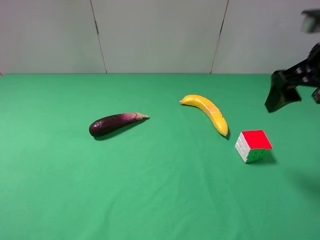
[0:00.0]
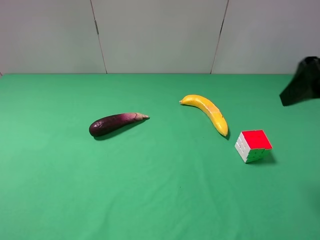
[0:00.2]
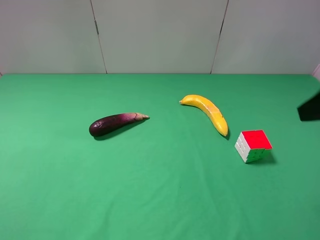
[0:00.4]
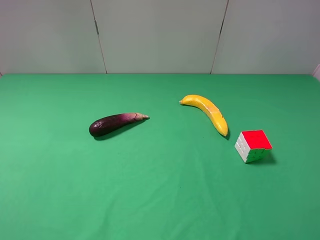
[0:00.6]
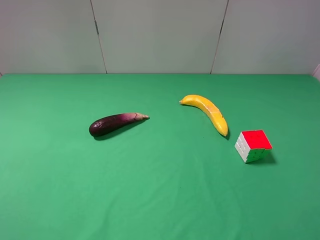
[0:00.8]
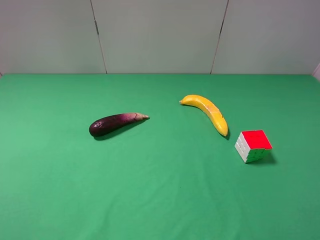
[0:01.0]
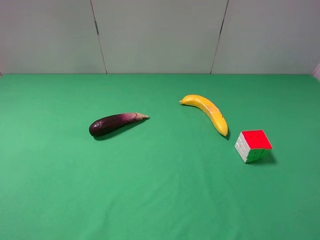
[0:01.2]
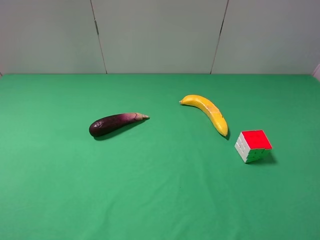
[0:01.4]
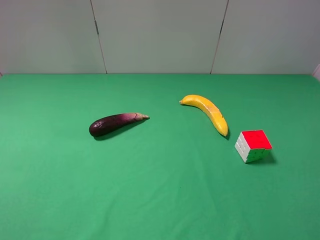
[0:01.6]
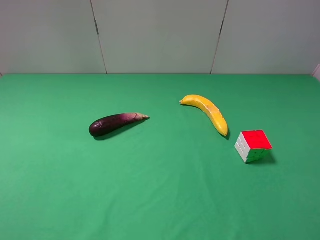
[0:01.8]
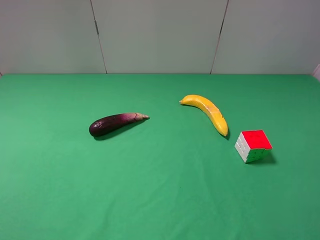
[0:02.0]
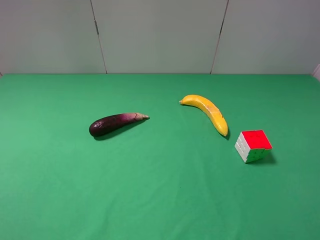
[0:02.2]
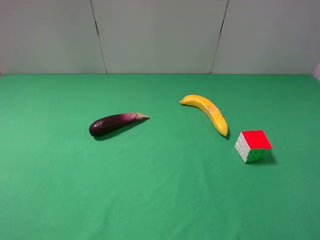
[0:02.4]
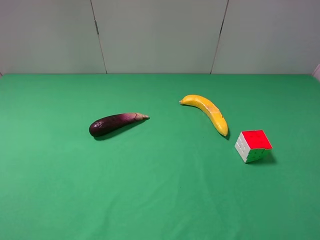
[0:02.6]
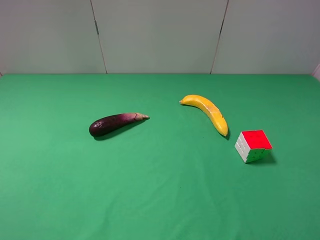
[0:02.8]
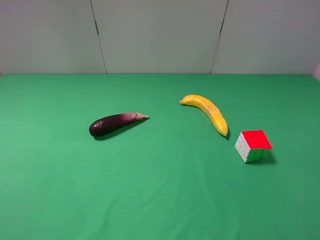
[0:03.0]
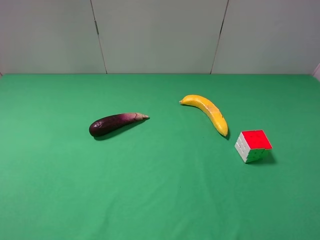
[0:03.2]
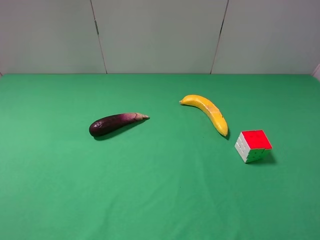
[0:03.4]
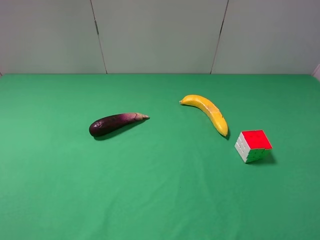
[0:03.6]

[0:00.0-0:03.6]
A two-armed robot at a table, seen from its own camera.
Task of the whole recording: use the left gripper to pick up the item and transfer it from the left gripper to the right gripper.
0:00.0 to 0:01.8: The right gripper travels backward by some 20 cm.

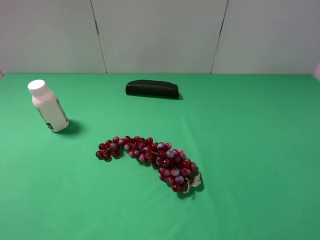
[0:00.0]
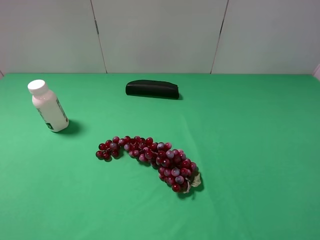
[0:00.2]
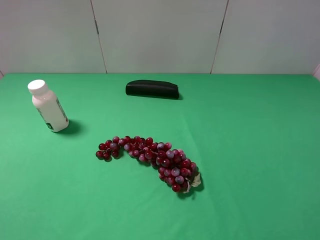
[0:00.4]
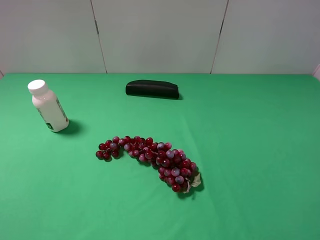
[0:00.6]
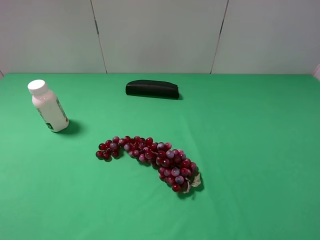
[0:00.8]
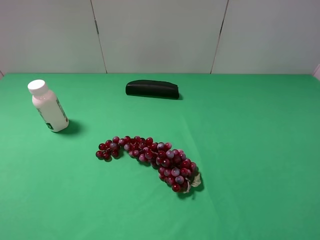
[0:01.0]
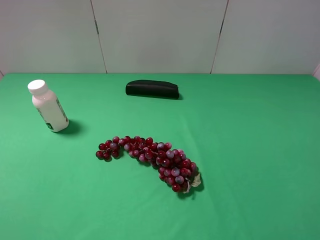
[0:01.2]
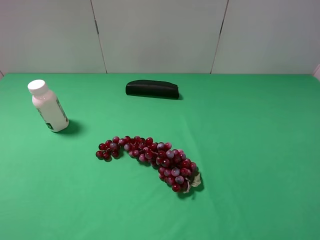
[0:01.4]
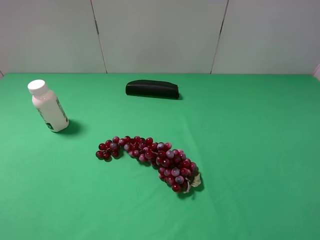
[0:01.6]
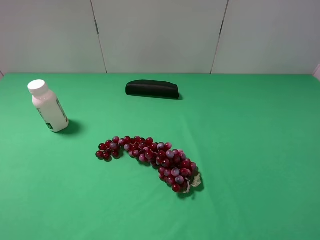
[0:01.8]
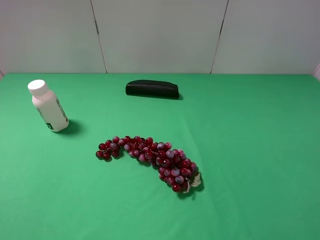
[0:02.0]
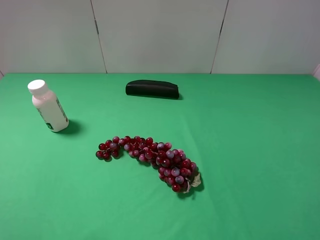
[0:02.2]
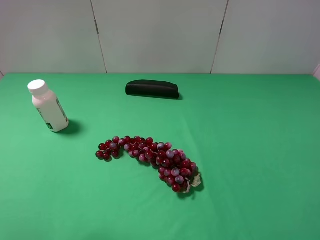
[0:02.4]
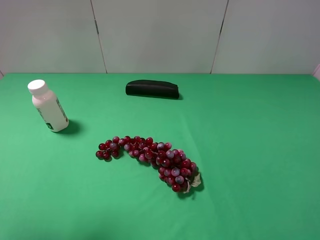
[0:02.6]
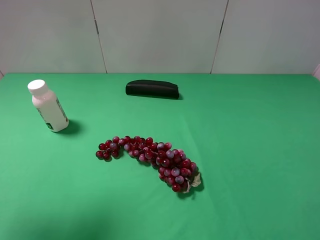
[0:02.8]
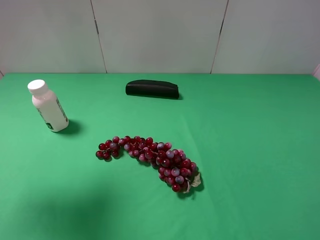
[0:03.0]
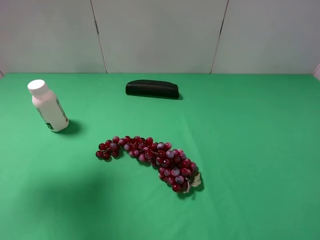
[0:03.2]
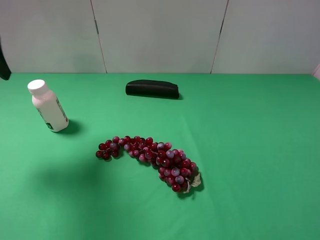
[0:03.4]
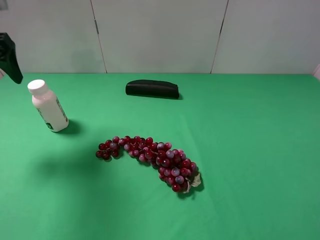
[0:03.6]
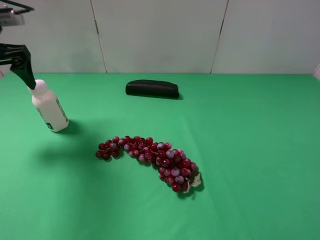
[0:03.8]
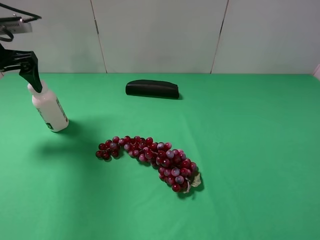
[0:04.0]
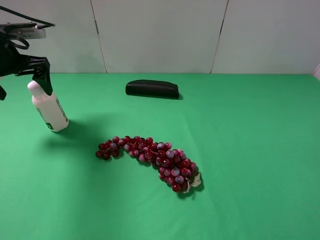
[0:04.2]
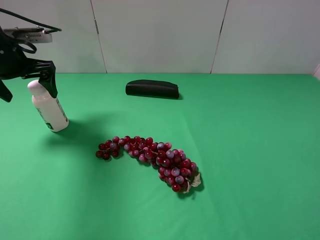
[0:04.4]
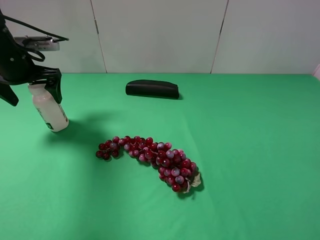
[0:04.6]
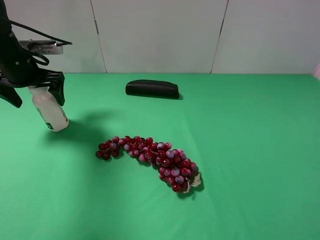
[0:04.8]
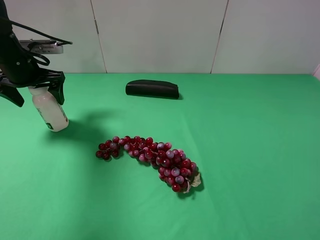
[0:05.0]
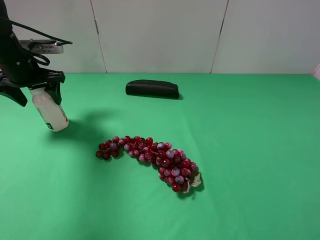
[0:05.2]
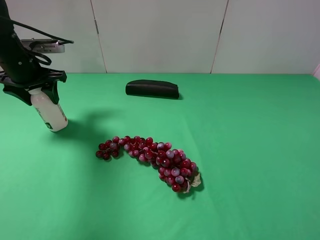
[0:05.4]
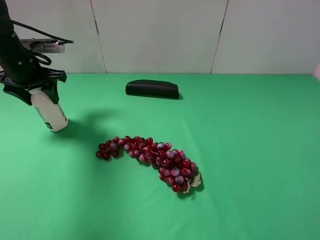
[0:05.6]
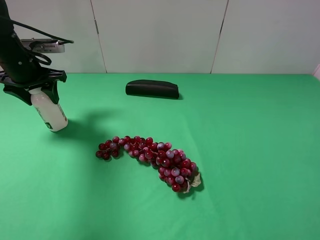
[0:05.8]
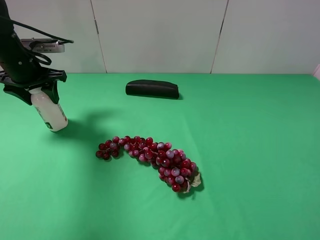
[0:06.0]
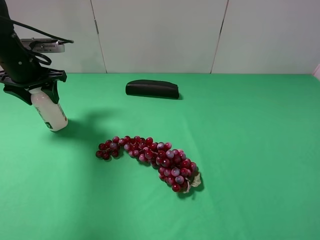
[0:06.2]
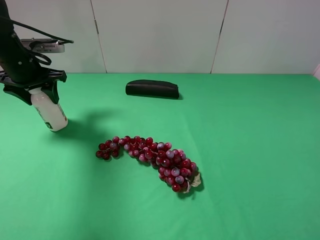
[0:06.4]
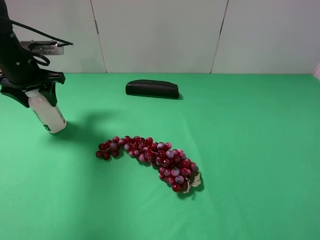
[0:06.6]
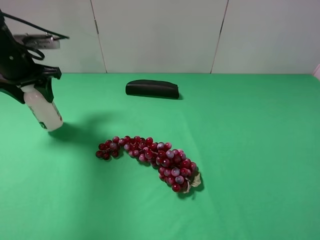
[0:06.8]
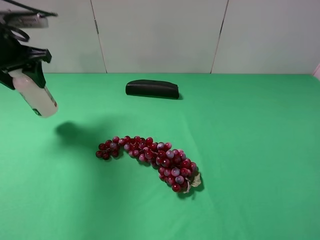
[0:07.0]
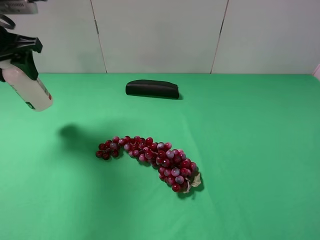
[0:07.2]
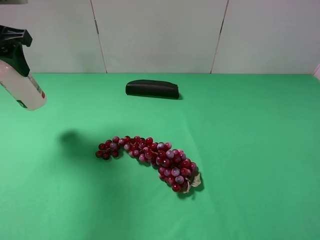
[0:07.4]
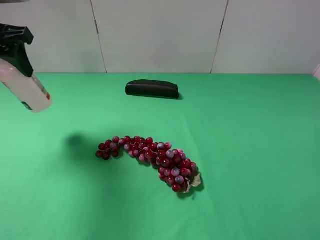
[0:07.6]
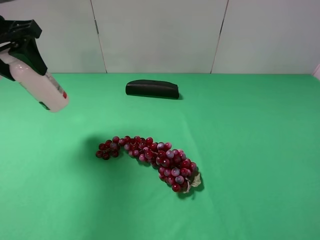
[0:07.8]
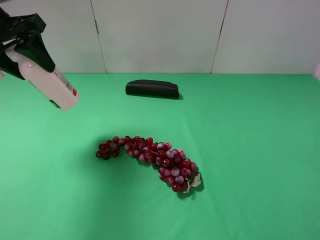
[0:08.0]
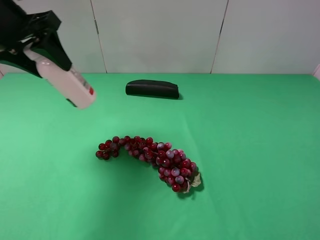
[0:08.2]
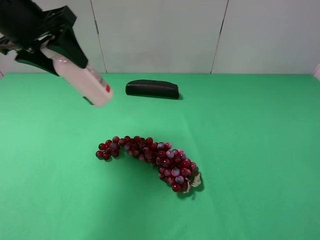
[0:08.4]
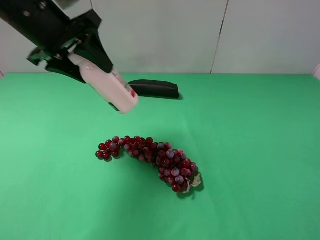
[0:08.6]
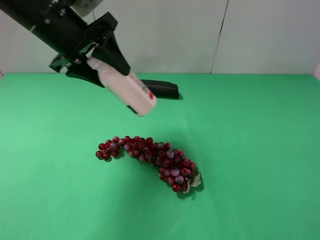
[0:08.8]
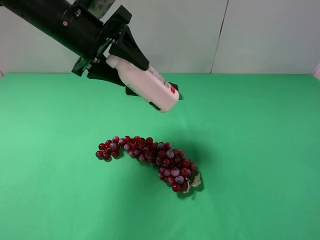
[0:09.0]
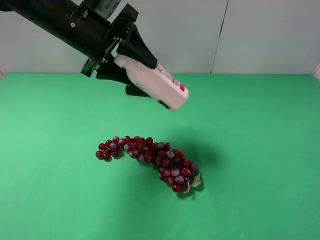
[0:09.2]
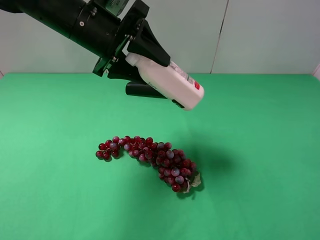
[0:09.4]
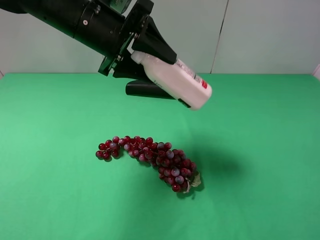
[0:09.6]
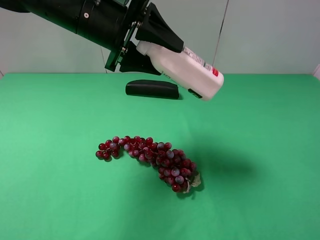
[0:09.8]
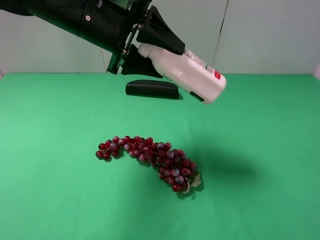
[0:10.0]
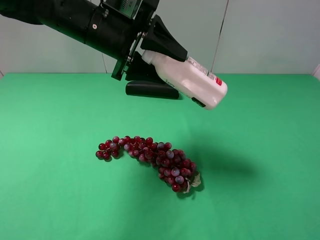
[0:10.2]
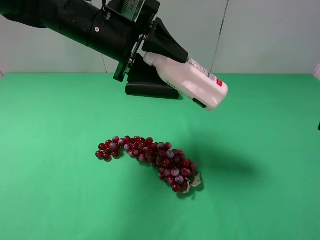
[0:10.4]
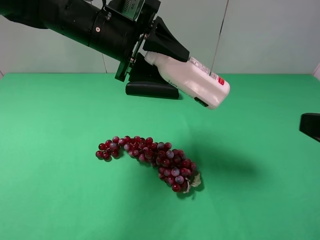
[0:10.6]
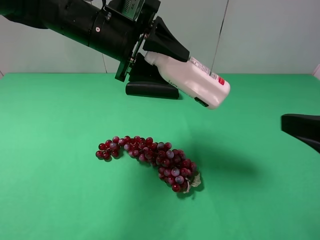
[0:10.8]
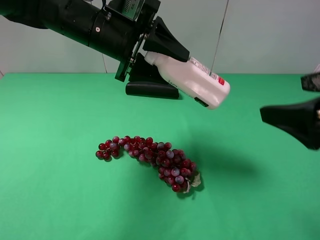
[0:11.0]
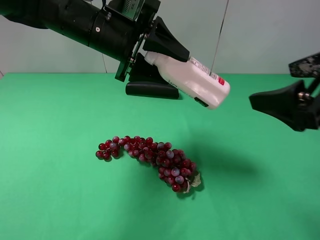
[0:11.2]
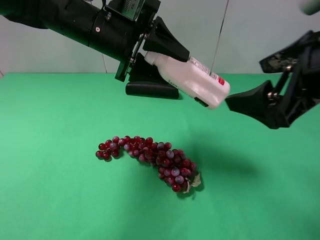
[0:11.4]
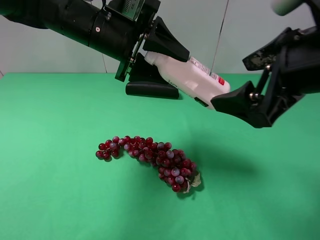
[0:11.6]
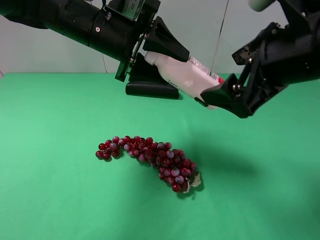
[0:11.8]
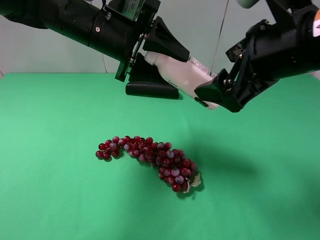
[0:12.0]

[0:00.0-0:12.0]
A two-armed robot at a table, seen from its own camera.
Task of the whole recording: use the left gripper to pick up the item and transfer it from the left gripper to the right gripper.
Step, 0:00.0 to 0:05.4: Use the left gripper to grab the milk on the left side of the table.
0:00.0 to 0:01.6: Neither gripper changes place.
0:01.6 to 0:03.0: The left gripper travels forward and upward by roughly 20 cm.
0:03.0 to 0:04.4: The left gripper heads forward and downward, covering approximately 20 cm.
0:04.4 to 0:06.0: The left gripper closes up.
0:06.0 to 0:07.6: The left gripper shifts roughly 15 cm upward and backward.
0:07.6 to 0:09.0: The left gripper is displaced to the right by some 15 cm.
0:10.4 to 0:12.0: The right gripper travels forward and to the left by about 20 cm.

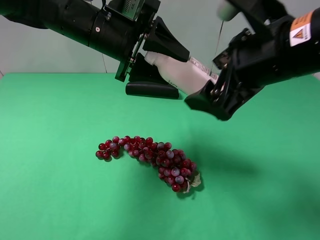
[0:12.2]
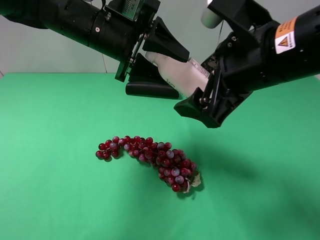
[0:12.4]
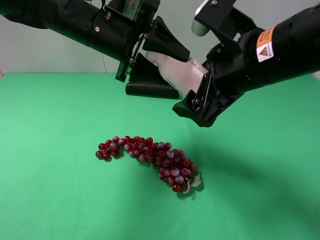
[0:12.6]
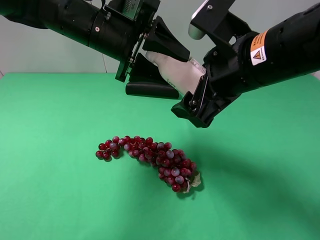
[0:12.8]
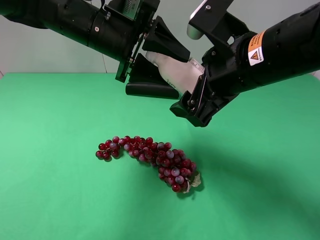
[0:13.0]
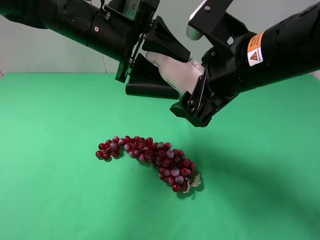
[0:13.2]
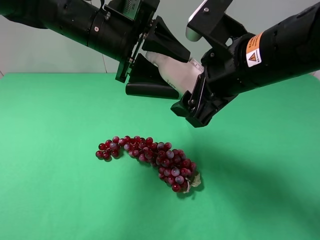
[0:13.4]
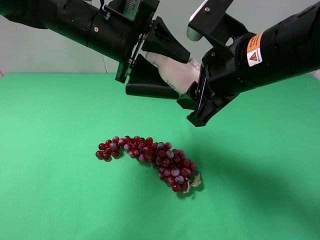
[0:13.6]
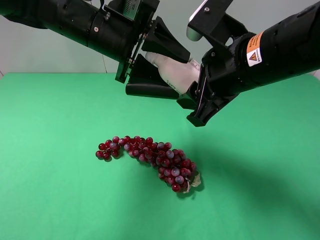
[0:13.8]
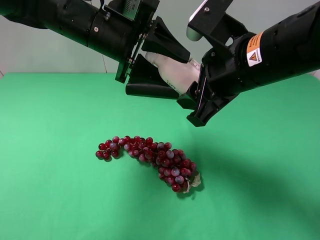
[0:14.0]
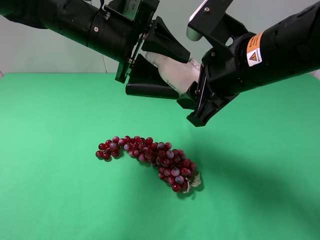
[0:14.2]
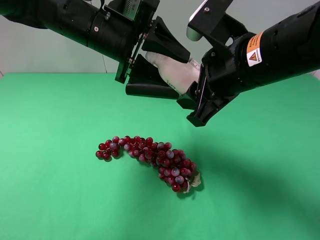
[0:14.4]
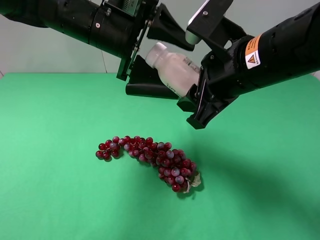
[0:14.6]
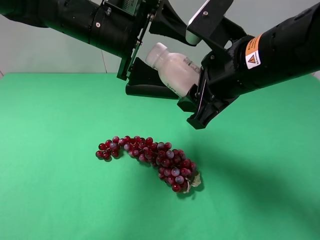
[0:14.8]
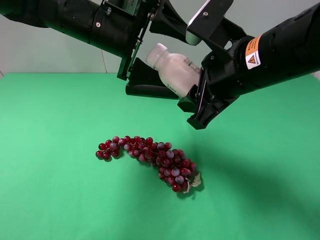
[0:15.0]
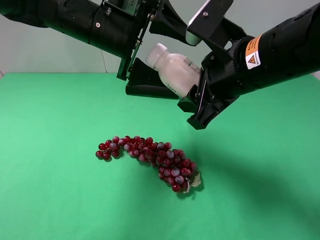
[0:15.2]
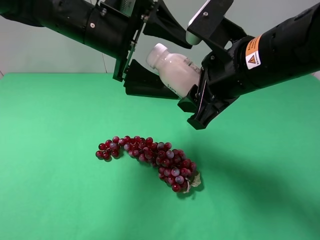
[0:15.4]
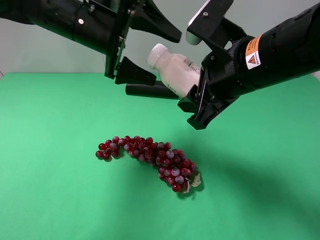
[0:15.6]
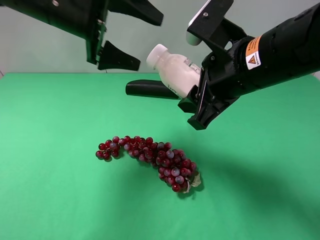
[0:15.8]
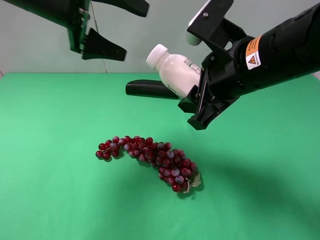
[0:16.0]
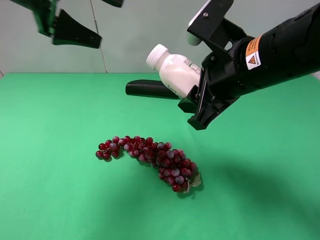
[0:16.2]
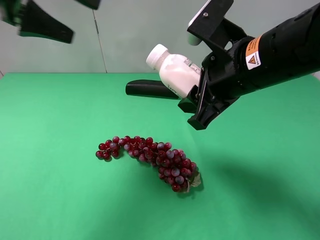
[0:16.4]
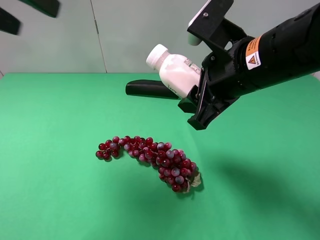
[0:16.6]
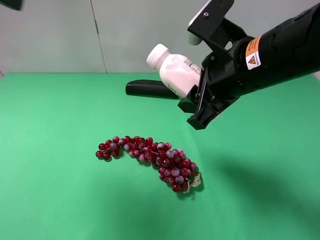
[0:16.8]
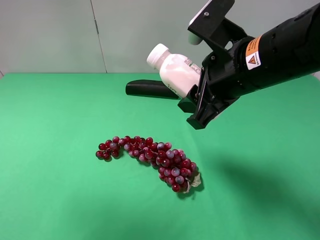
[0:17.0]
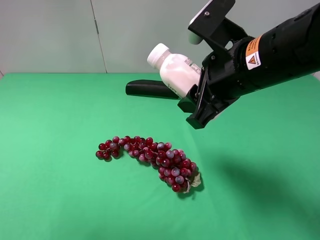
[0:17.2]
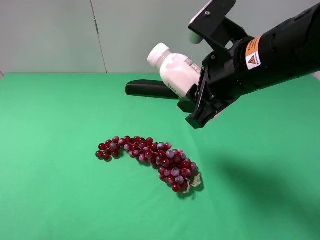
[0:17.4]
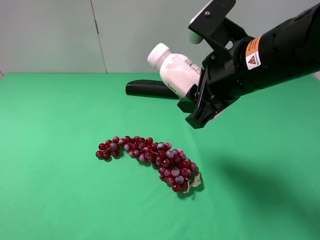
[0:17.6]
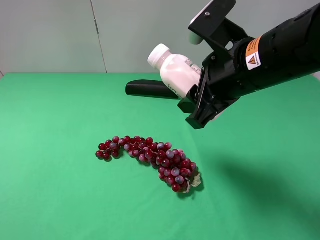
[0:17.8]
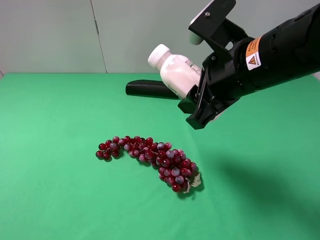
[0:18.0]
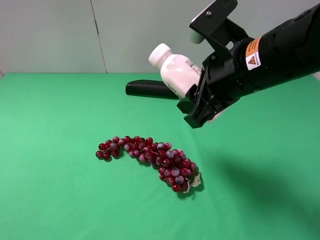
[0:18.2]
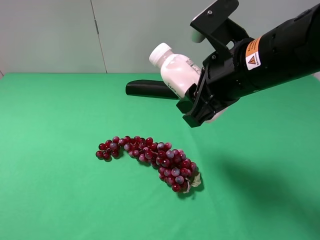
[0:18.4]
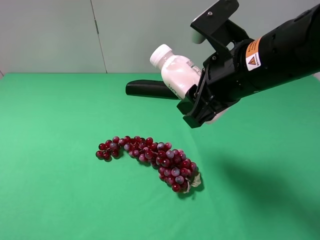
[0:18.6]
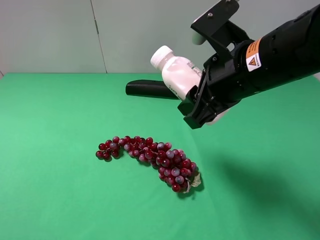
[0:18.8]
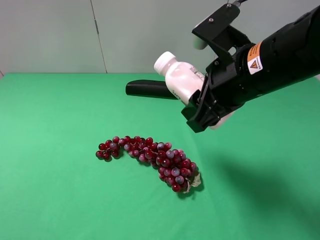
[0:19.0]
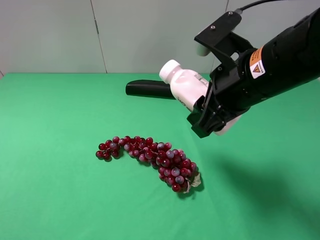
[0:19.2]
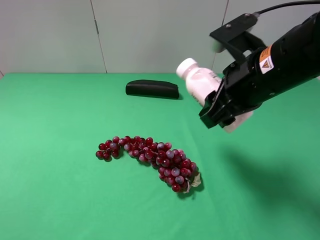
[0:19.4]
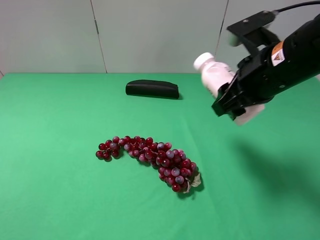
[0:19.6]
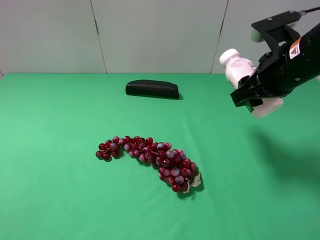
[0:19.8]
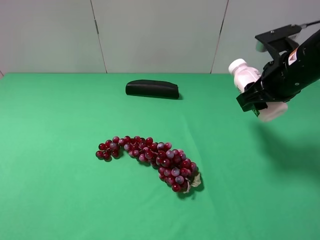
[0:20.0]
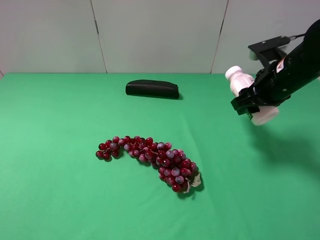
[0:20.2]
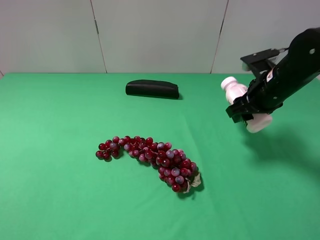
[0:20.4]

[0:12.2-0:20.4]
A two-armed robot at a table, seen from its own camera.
Task of the whole recording: use the left gripper to pick up the item and transfer it from the left gripper to the right gripper.
Step, 0:12.2 to 0:15.0: Pass the milk to the right gripper.
0:12.2 to 0:13.8: The right gripper closes up.
0:13.8 to 0:15.4: The left gripper opens its fingers.
0:15.4 to 0:17.2: The left gripper goes roughly 35 cm to the left, backward and upward.
0:17.2 to 0:18.8: The left gripper shifts approximately 20 cm downward and backward.
0:18.8 to 0:20.4: The right gripper heads to the right, forward and downward, covering about 15 cm.
